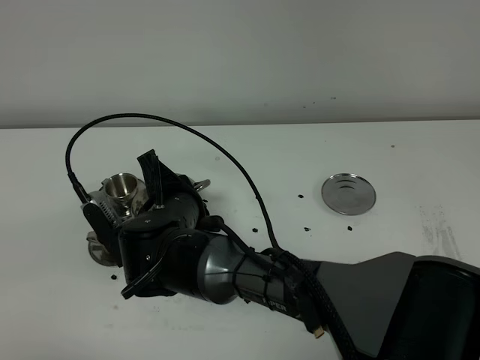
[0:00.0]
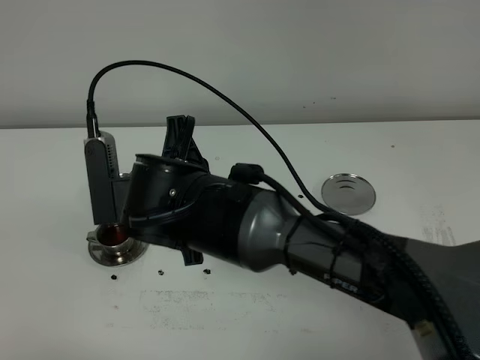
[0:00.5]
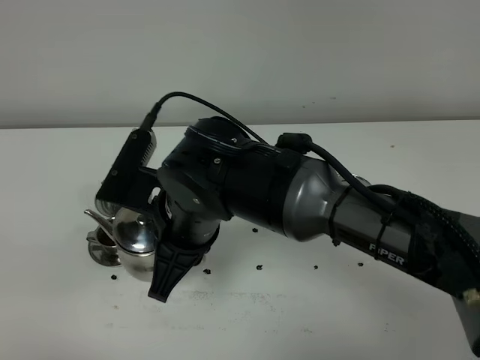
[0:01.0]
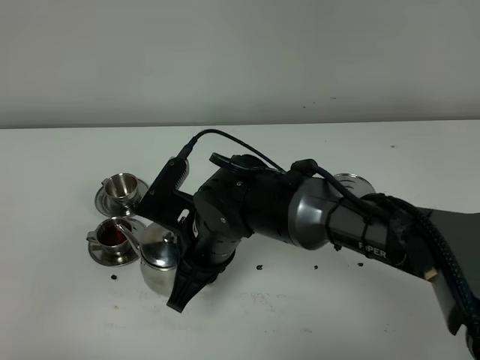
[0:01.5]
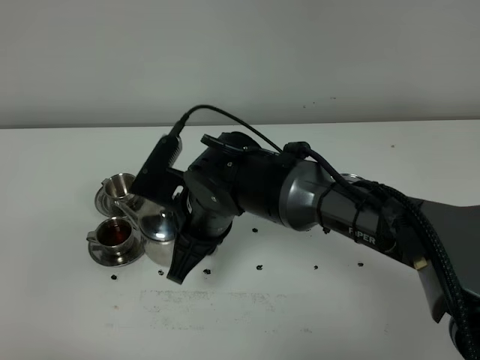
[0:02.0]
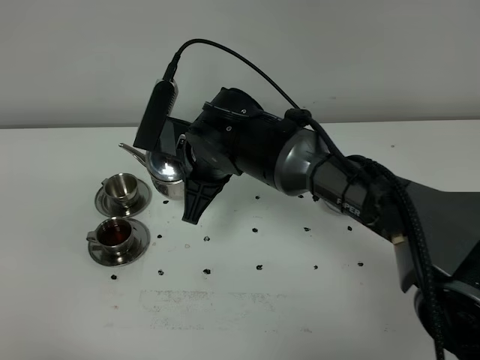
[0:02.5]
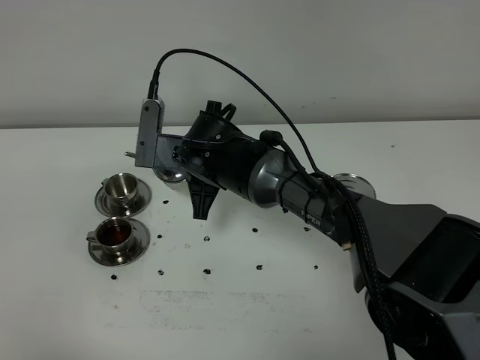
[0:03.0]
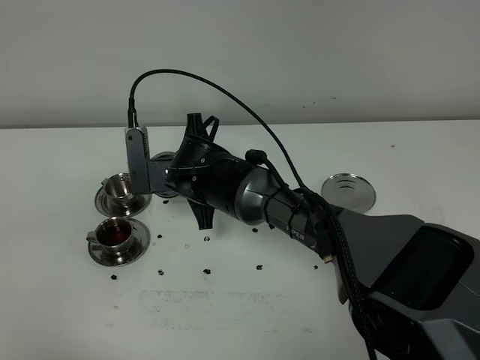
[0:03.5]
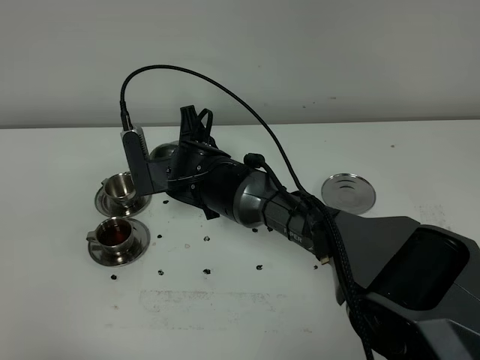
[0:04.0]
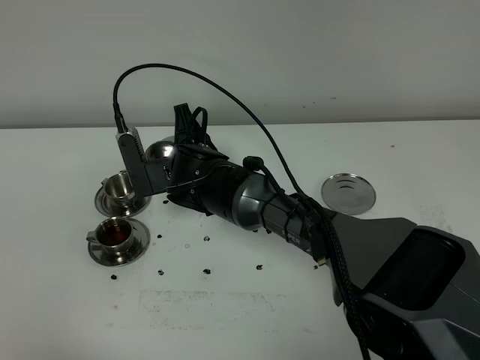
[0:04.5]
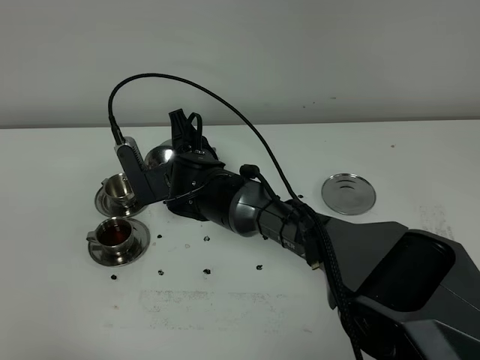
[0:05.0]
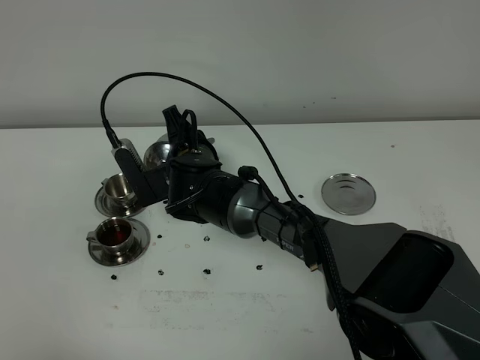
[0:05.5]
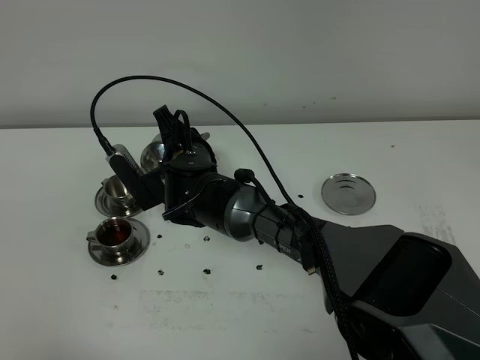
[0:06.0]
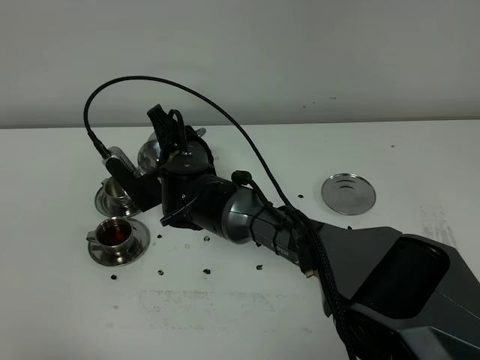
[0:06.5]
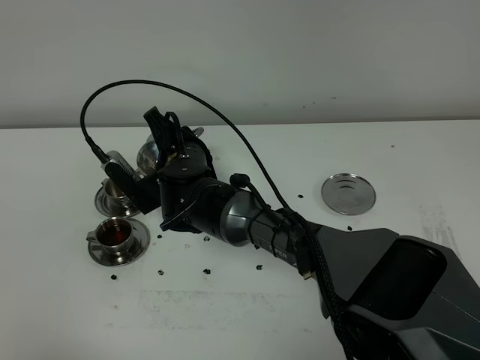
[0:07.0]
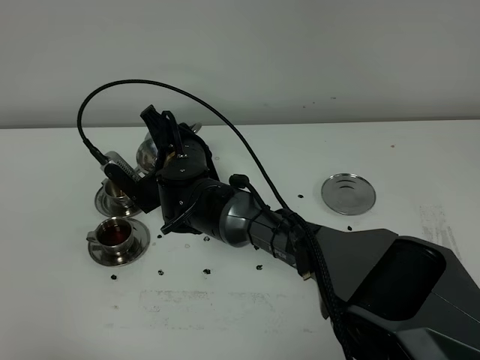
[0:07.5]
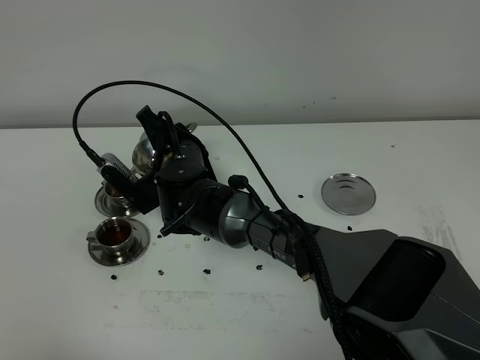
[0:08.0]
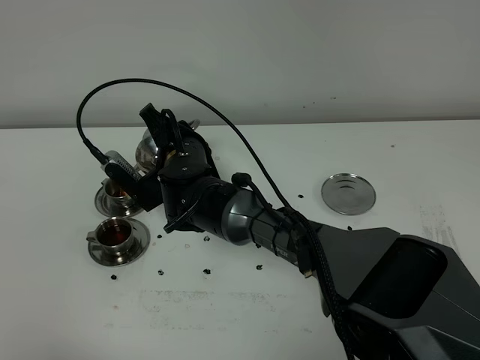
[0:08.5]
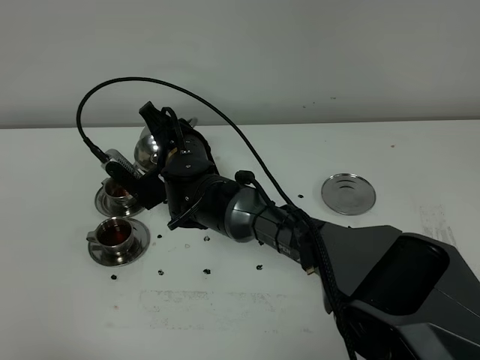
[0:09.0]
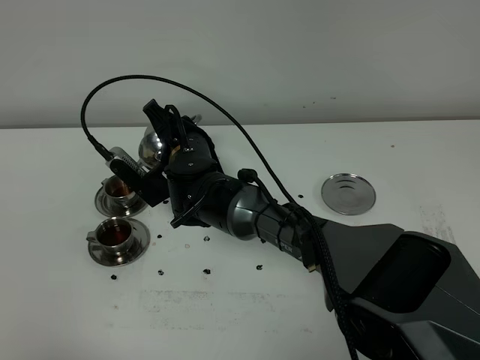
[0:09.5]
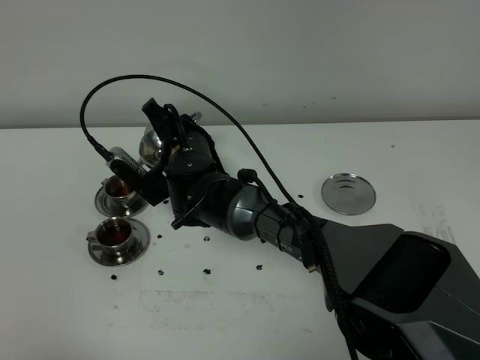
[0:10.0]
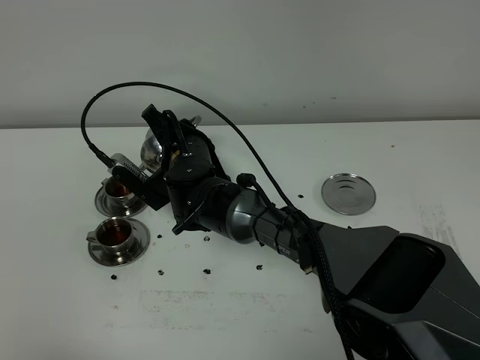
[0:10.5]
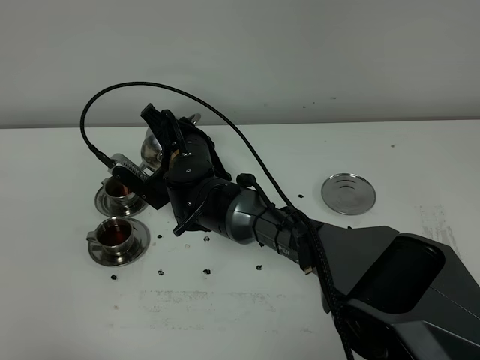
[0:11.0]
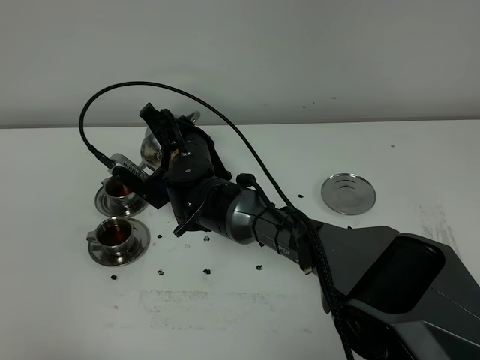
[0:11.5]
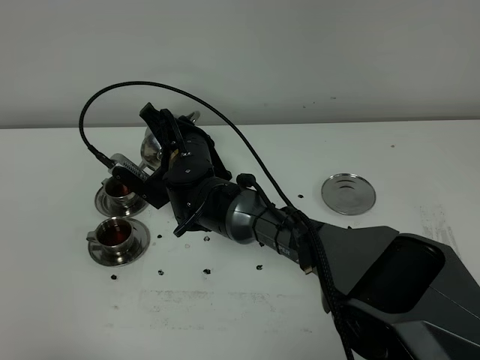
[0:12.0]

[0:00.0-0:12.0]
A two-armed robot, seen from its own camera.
Task of the whole recording: grasp the stainless steel teapot and pour the tea into the two stainless steel teacups one by one, put the stainless steel teapot back in its original place.
0:02.0 to 0:04.0: The right gripper is displaced forward by some 10 cm.
0:06.0 to 0:10.0: The grippers move only a little.
0:10.0 to 0:12.0: Both grippers stay put.

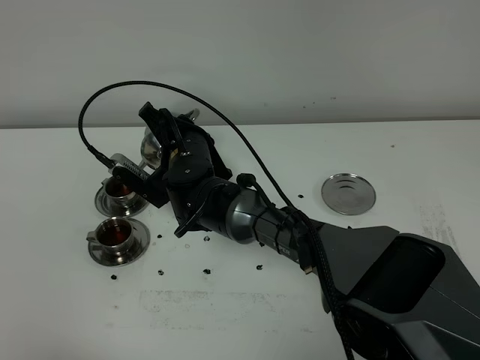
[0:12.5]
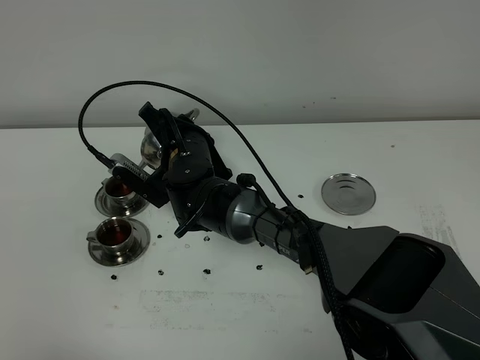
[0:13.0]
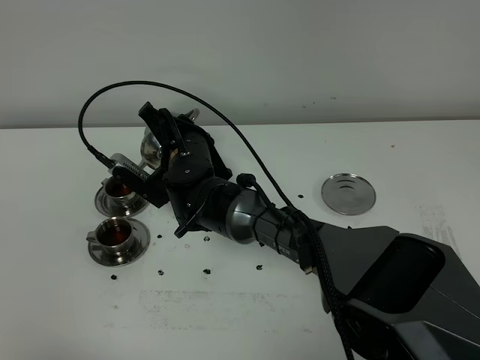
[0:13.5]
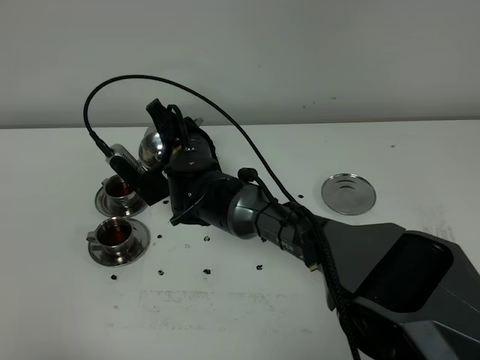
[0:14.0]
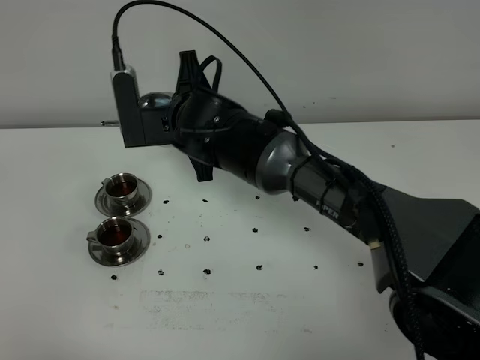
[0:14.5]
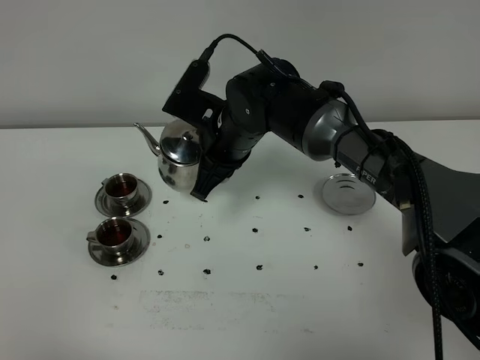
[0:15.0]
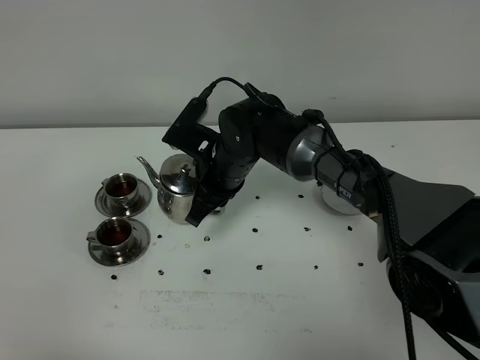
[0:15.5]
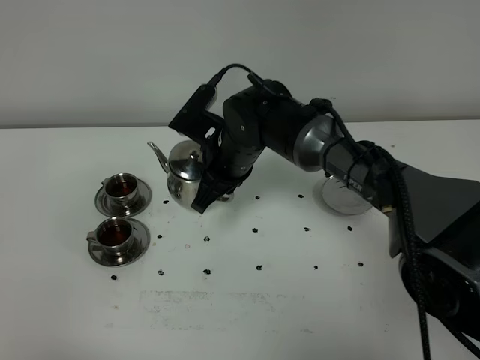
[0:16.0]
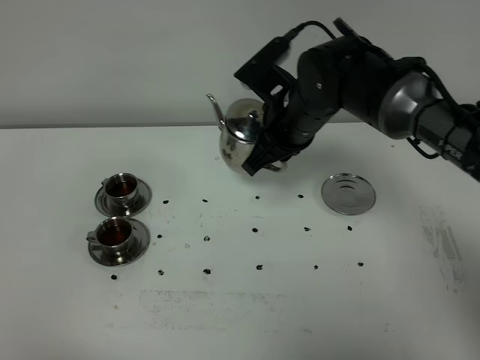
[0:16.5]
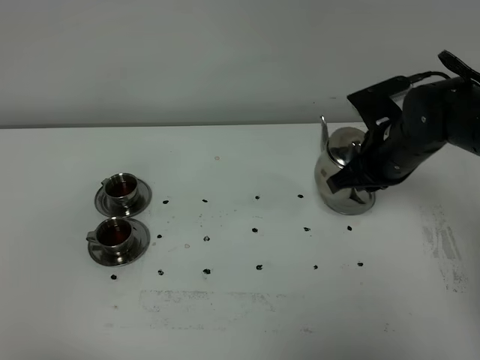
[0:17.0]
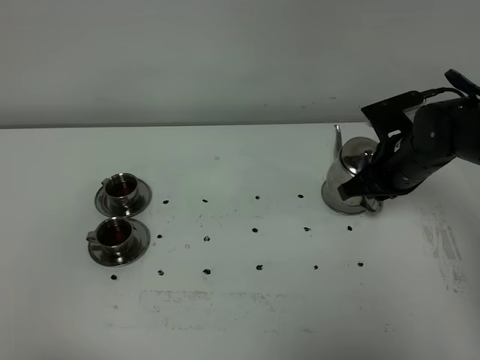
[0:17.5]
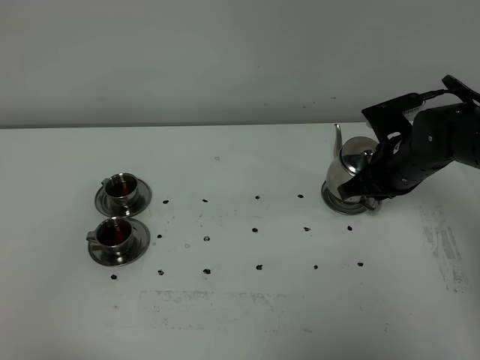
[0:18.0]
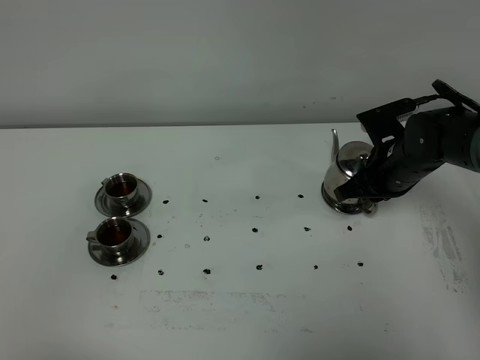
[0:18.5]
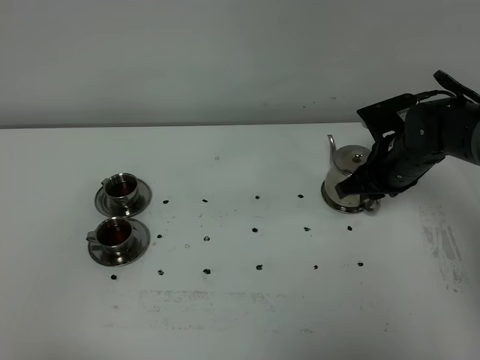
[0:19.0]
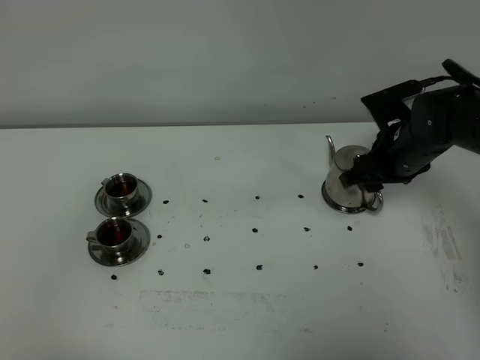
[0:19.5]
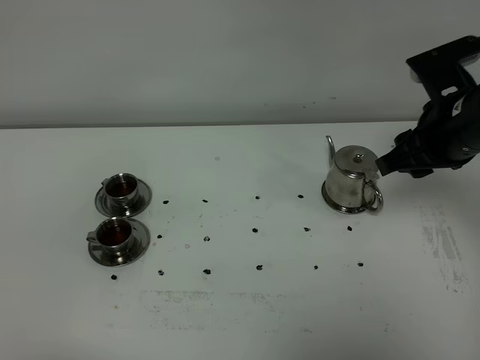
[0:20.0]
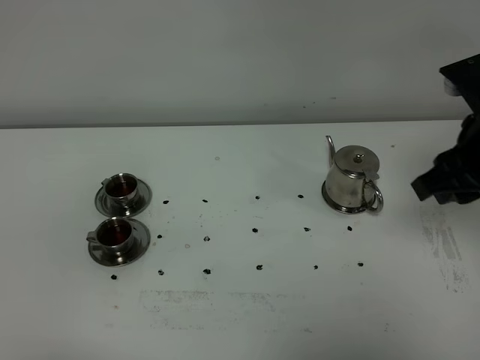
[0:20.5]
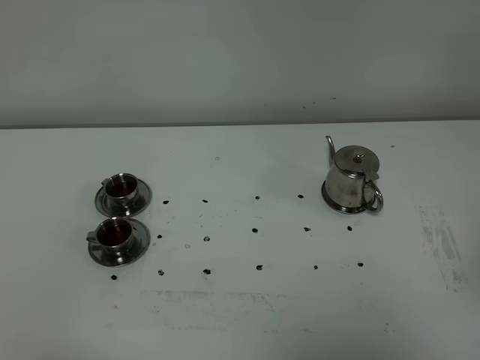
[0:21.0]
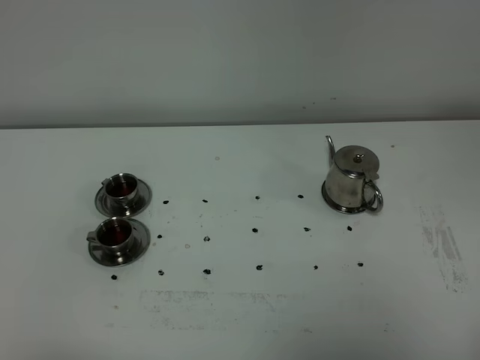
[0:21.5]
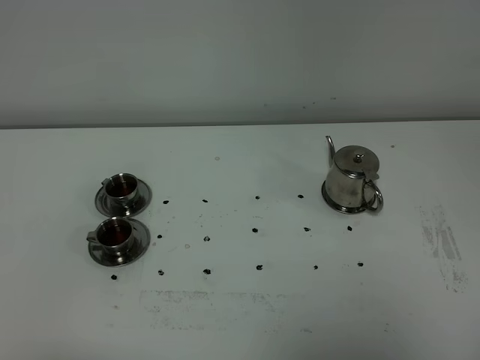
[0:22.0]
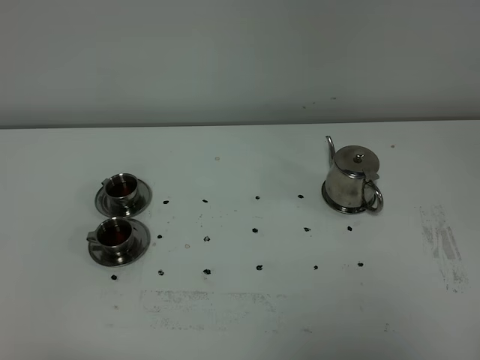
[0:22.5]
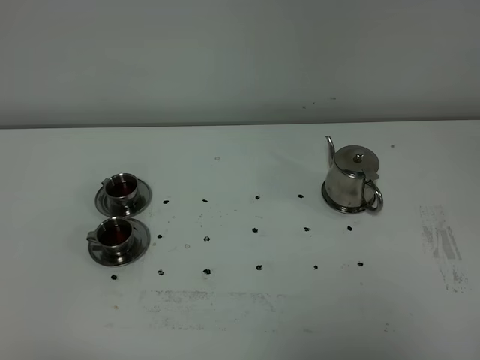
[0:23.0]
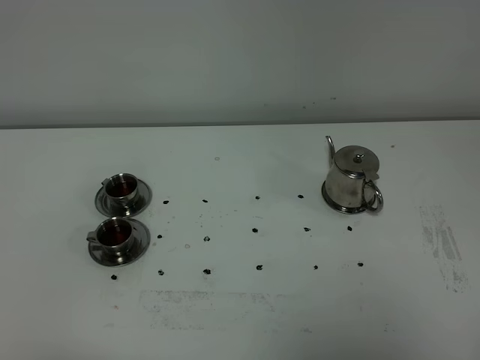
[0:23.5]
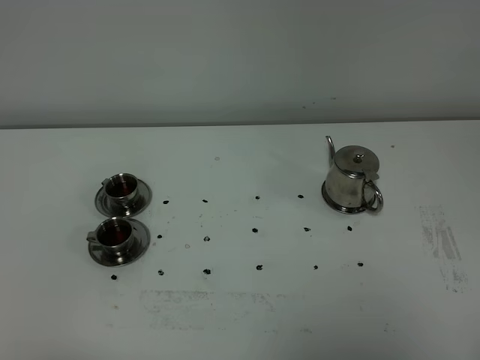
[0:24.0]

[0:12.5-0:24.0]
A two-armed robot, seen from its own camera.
Task of the whole recording: grasp the stainless steel teapot and pour the tea into the two stainless steel teacups one by one, put the stainless steel teapot back in its original place.
0:12.5 to 0:14.5: The right gripper moves upward, approximately 10 cm.
0:14.5 to 0:16.5: The right gripper moves to the right, roughly 10 cm.
0:16.5 to 0:18.5: The right gripper shifts about 15 cm to the right and downward.
0:18.5 to 0:20.0: The right gripper shifts approximately 15 cm upward and backward, and opens up.
0:20.0 to 0:22.0: The right gripper goes approximately 30 cm backward.
